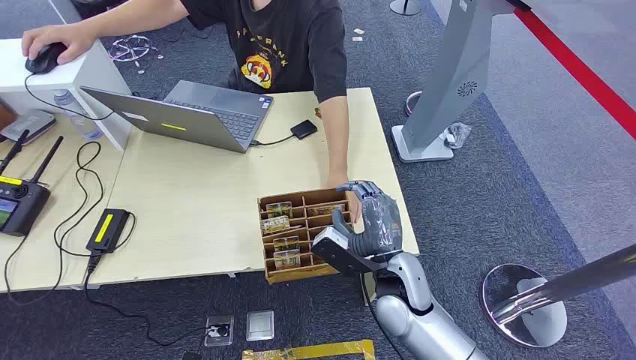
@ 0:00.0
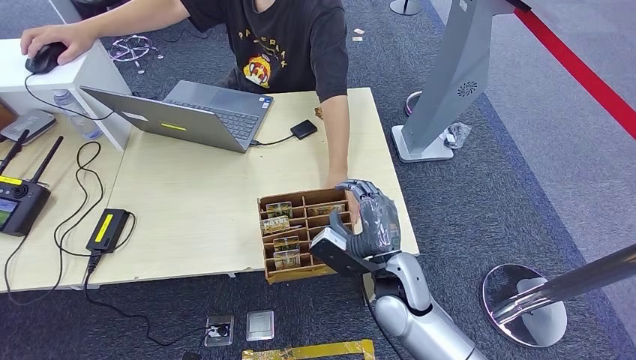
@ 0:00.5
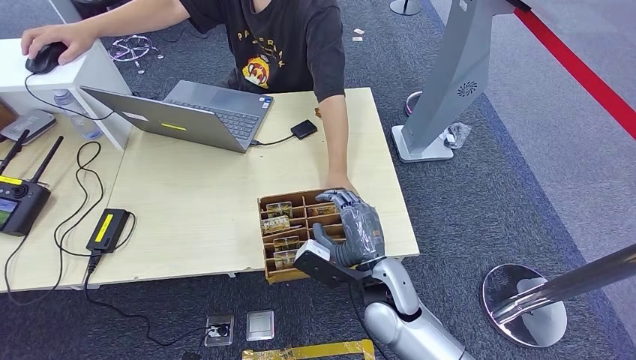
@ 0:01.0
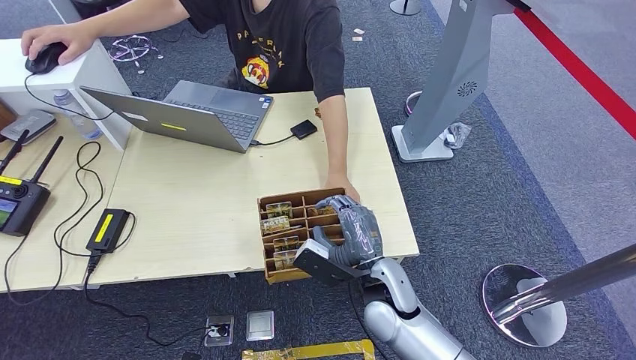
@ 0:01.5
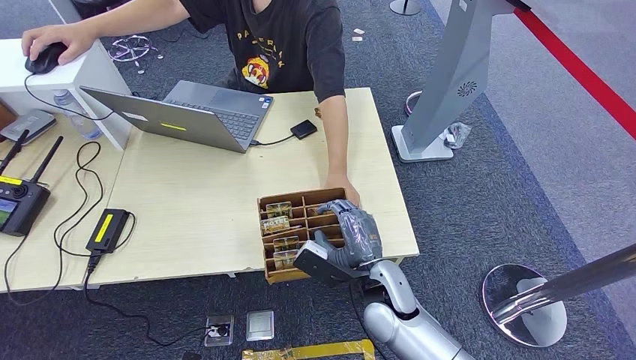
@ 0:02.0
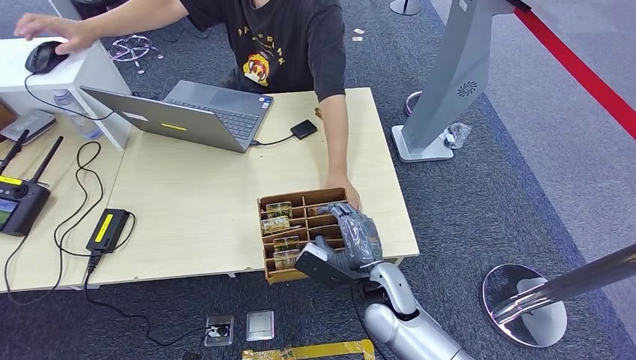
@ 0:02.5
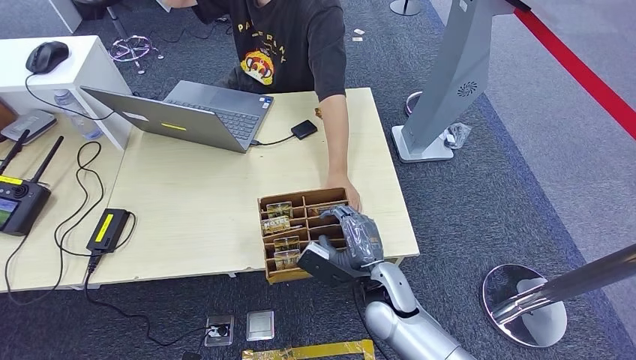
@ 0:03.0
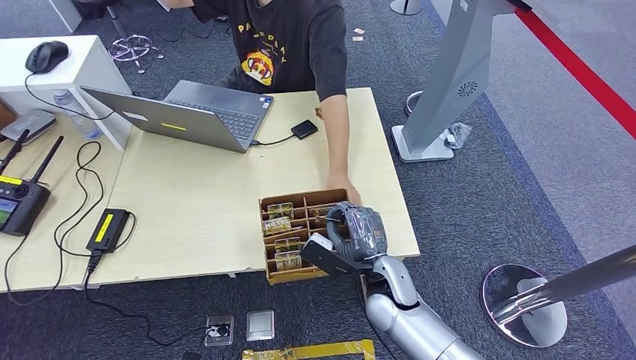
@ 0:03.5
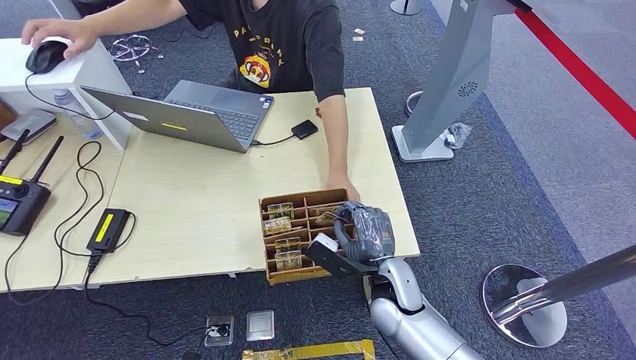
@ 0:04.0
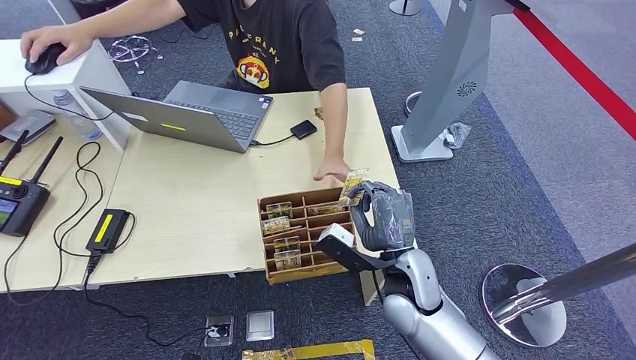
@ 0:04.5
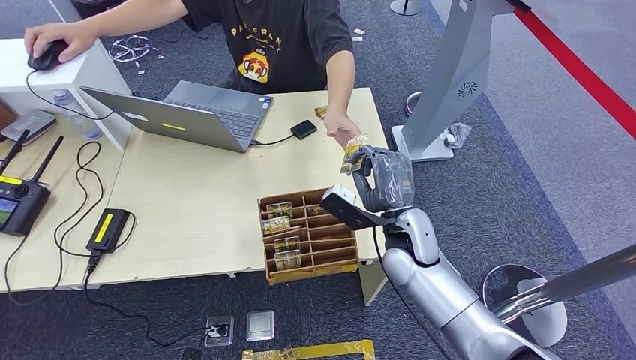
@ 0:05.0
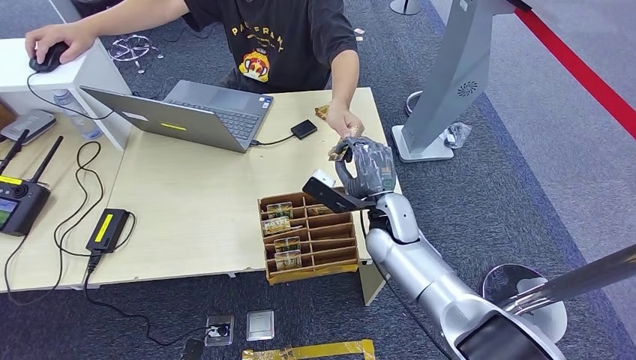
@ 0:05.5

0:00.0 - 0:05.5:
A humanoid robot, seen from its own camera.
Step, 0:00.0 - 0:04.0: Pick up the key card from the card box.
Step, 0:04.5 - 0:05.5: Hand the key card to the target.
0:02.0 - 0:03.5: The hands make only small movements.
0:03.5 - 0:05.5: The right hand heads forward and upward, covering approximately 10 cm.
